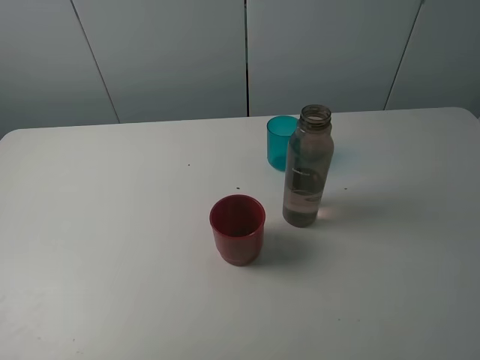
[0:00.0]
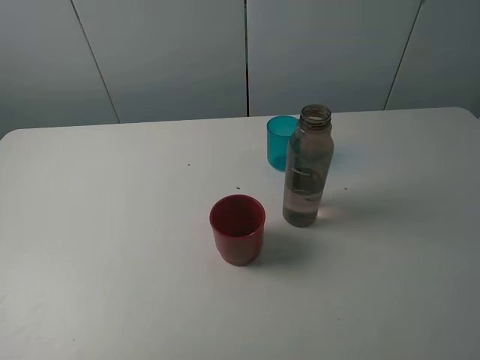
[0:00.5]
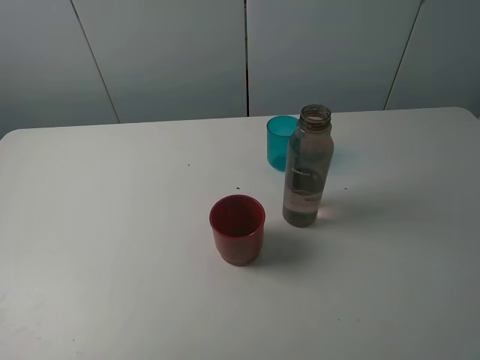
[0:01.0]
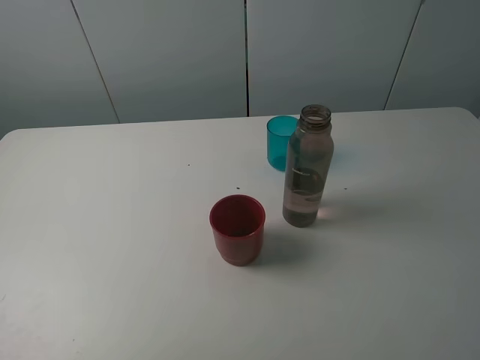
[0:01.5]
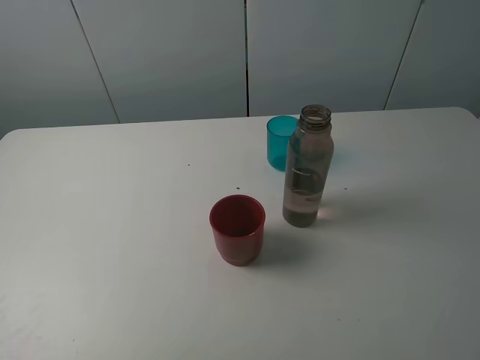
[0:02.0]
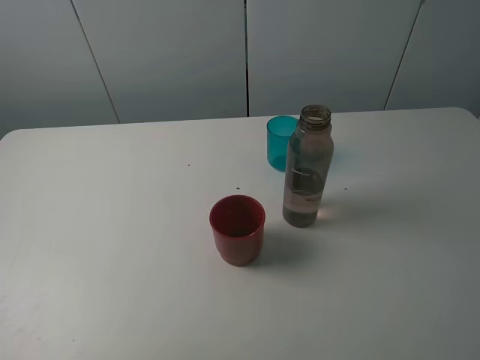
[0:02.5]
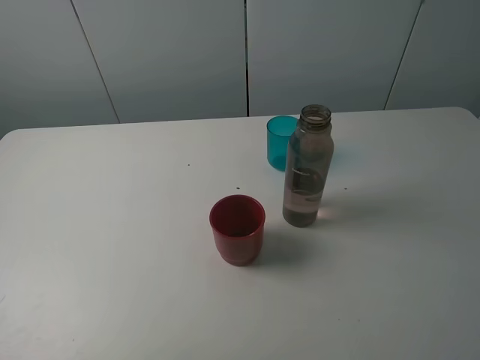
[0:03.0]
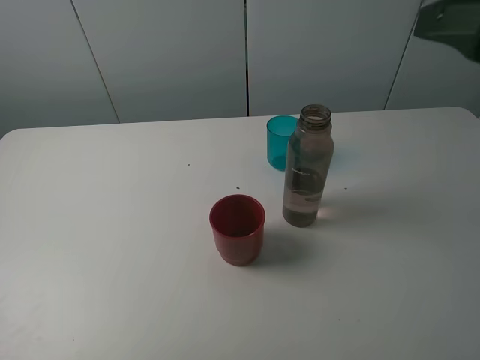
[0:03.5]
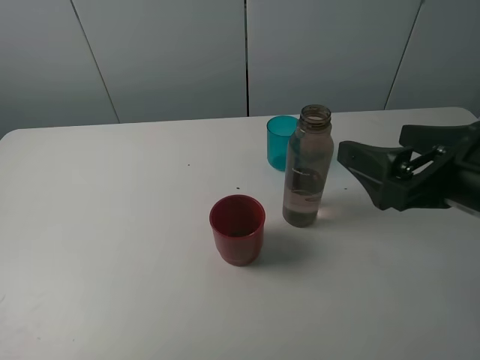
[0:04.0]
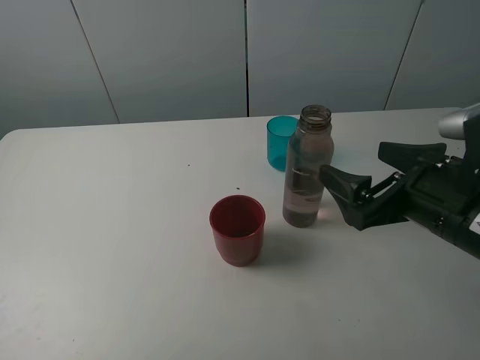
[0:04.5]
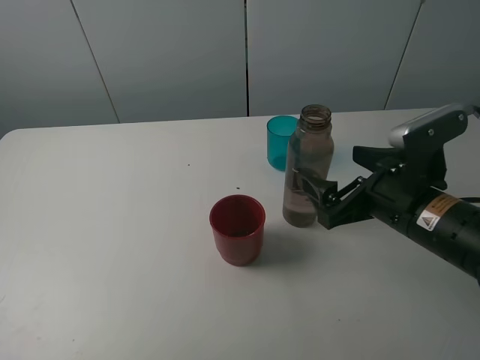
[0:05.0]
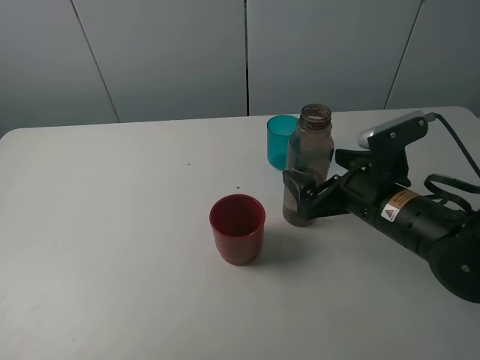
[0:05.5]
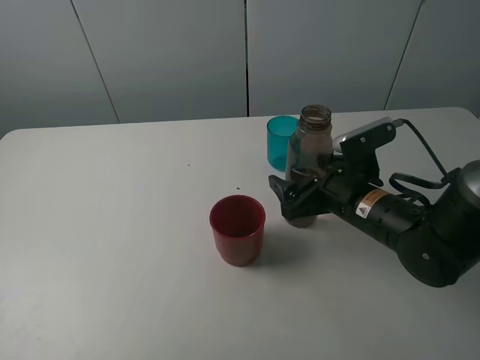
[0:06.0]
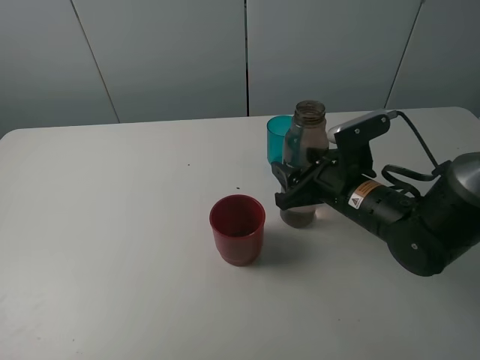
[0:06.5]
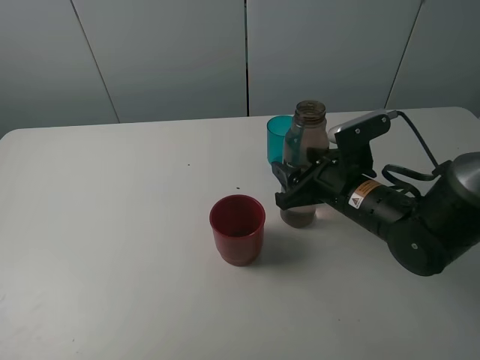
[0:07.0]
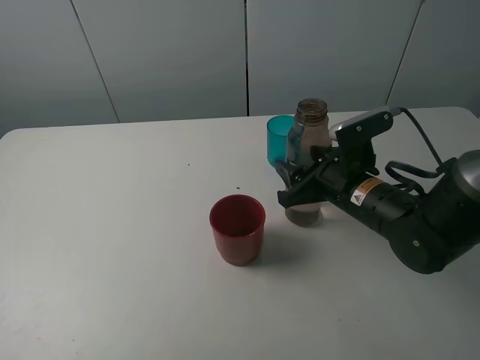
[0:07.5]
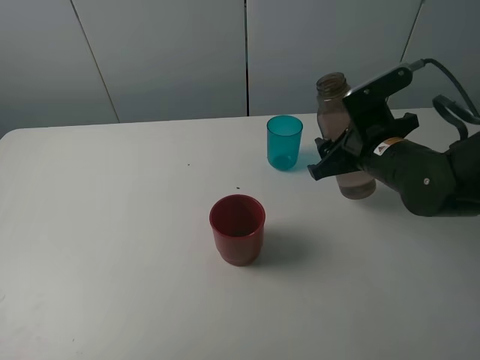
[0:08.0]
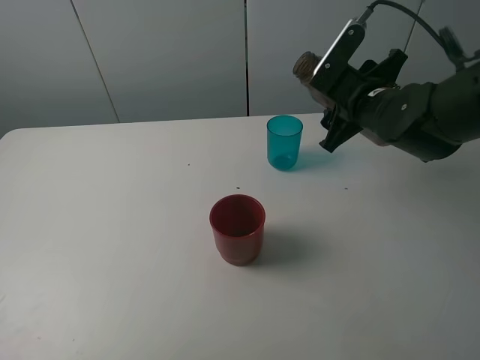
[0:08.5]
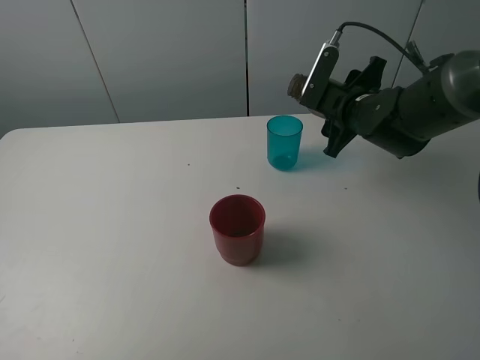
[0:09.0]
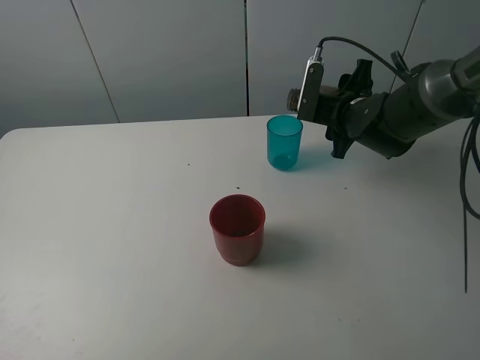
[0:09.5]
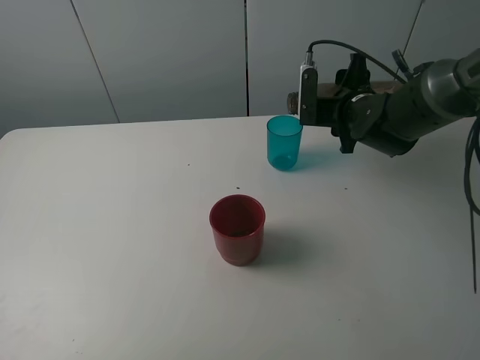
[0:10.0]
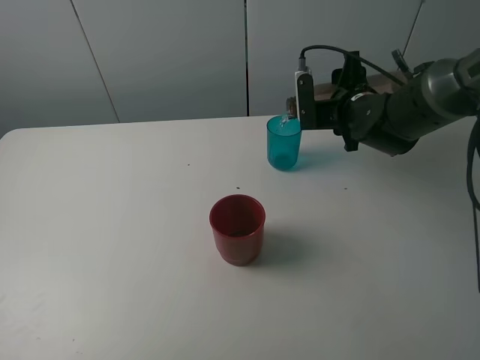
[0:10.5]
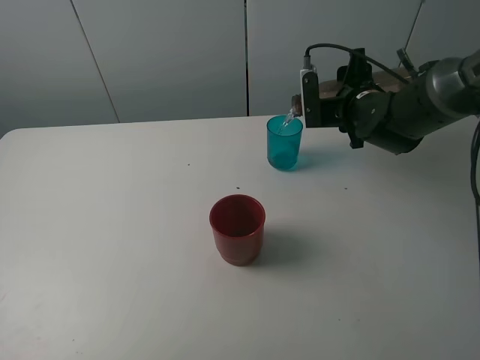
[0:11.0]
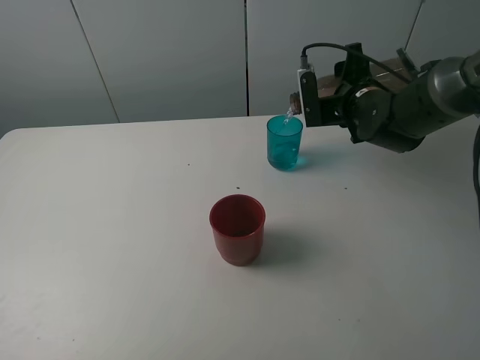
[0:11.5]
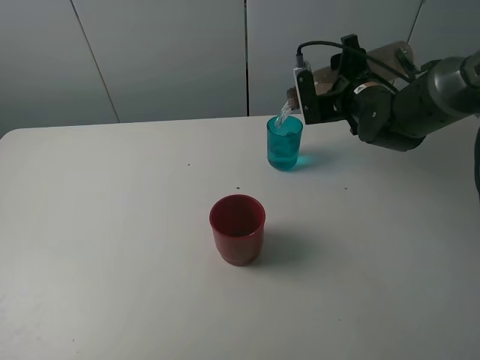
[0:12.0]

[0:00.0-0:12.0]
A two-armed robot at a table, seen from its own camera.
Task of the whole recording: pick up the bottle and pour water into the cup, then pick up the cup containing water and pour it into another cup.
Step, 0:00.0 to 0:06.5: Grasp the brown bottle with the right gripper.
0:00.0 to 0:02.0: Both grippers stay put.
0:02.0 to 0:04.0: The right gripper heads forward, to the left and downward, covering roughly 15 cm.
0:04.0 to 0:06.0: The right gripper travels downward, forward and to the left by about 15 cm.
0:06.0 to 0:08.0: The right gripper ends up about 5 cm from where it was, and closes its fingers.
0:08.0 to 0:10.0: The right gripper shifts some 10 cm forward.
0:10.0 to 0:12.0: The grippers stay close to where they were, moving slightly.

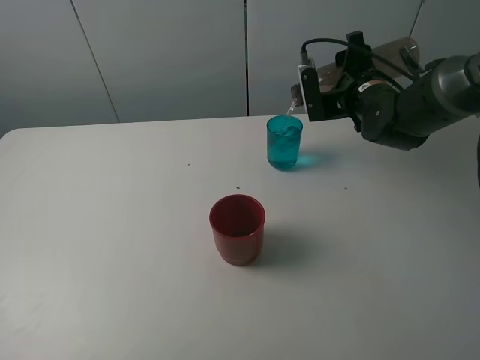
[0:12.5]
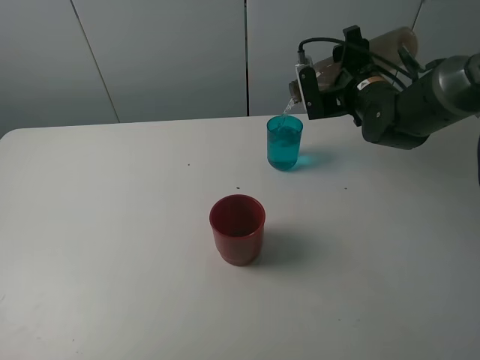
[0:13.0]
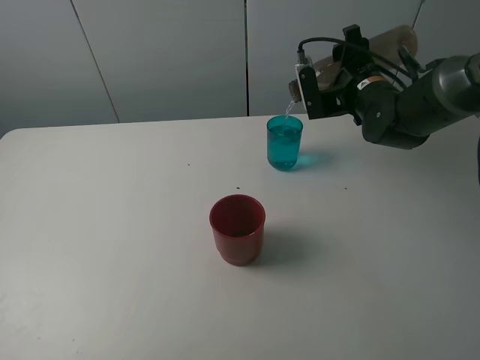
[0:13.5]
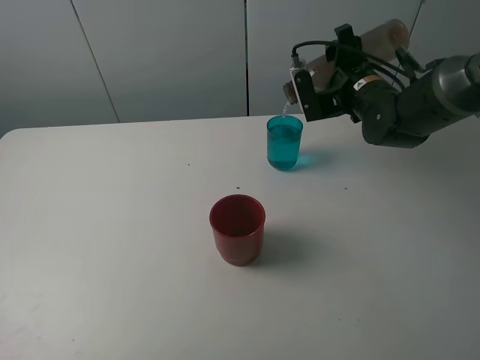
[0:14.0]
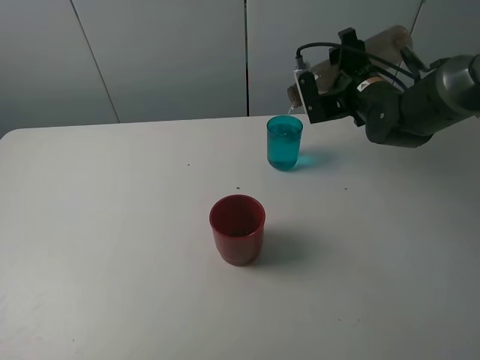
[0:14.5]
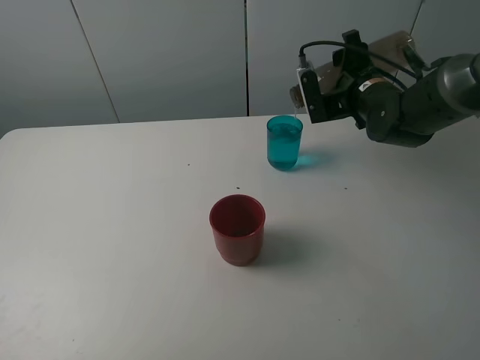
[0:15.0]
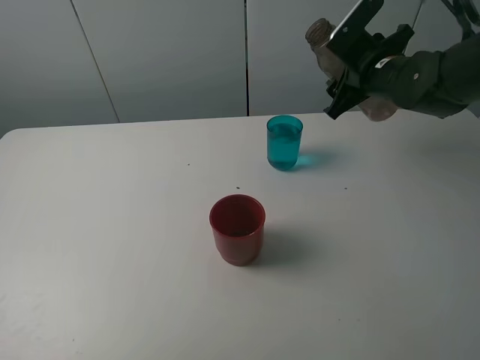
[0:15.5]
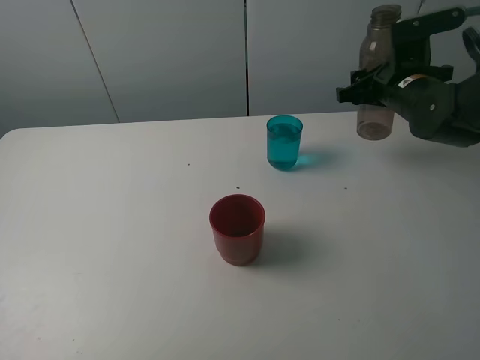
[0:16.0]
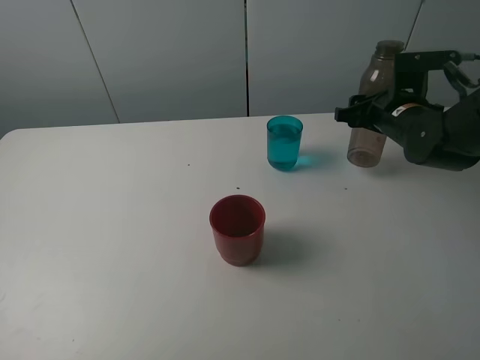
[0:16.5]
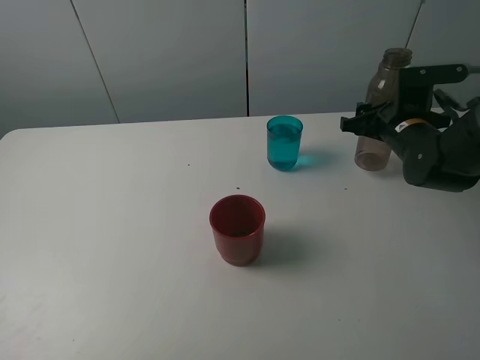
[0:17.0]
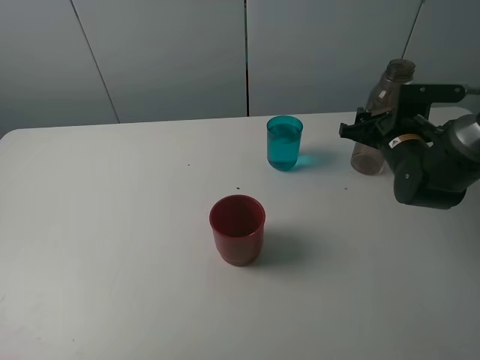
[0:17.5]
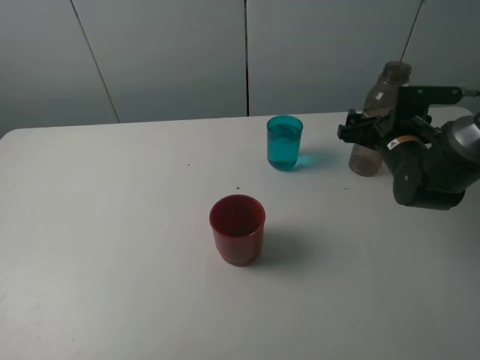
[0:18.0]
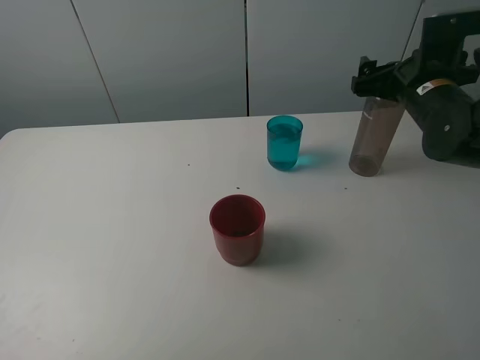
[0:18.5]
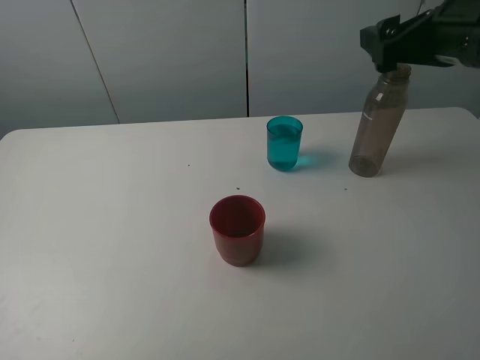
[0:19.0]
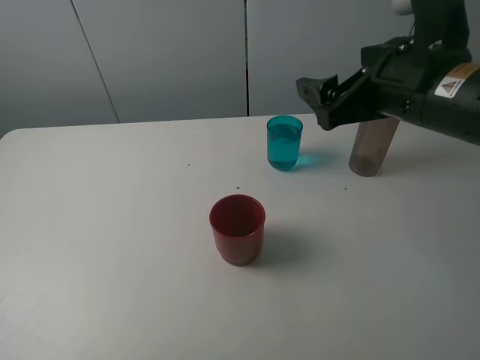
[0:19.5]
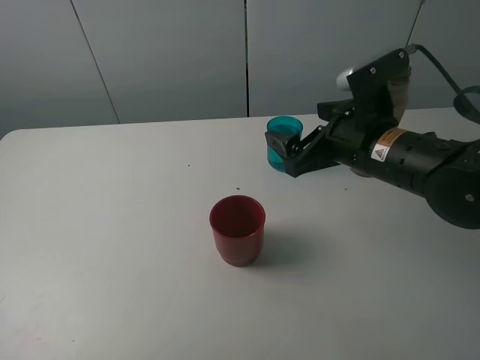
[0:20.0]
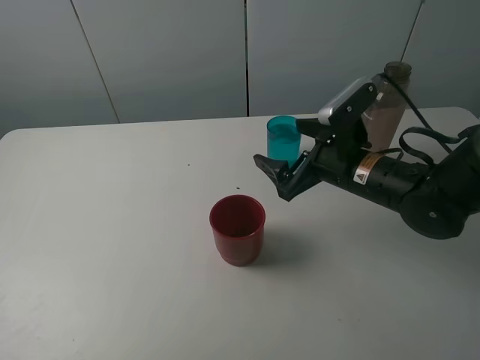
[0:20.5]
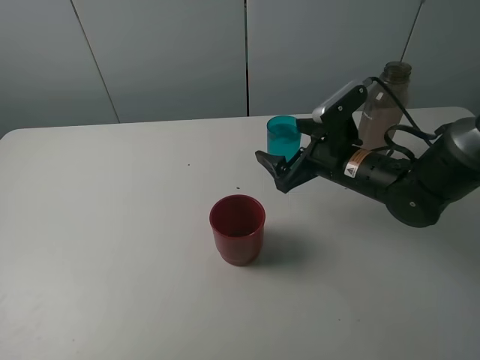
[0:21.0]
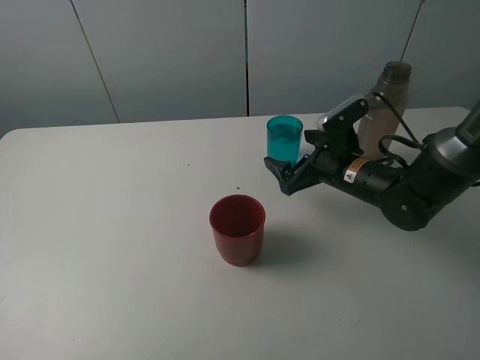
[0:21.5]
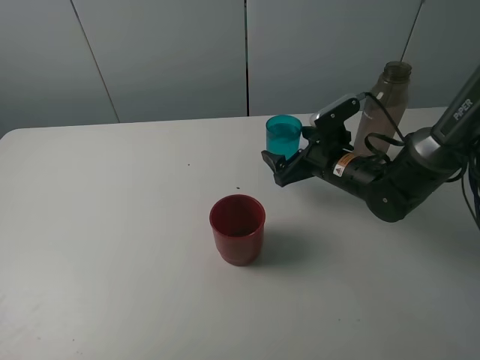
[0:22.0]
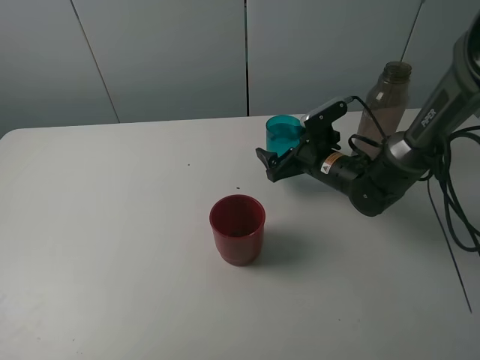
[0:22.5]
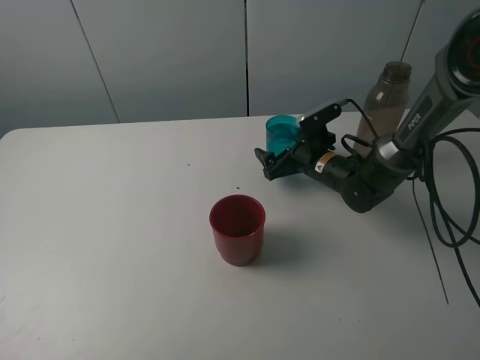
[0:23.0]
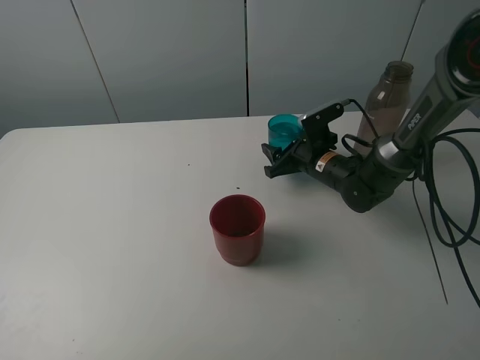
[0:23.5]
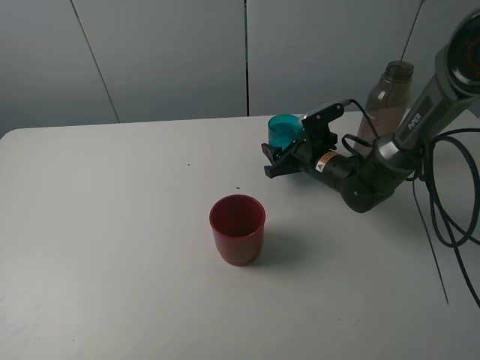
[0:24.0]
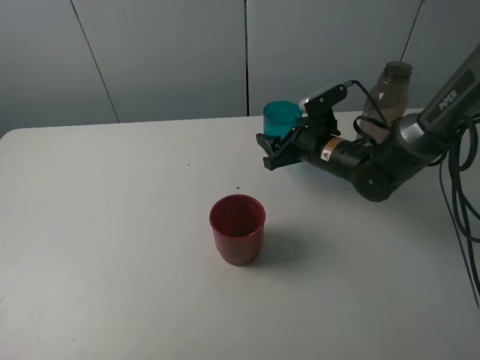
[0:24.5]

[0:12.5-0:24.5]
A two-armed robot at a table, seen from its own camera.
Task of the whole recording: pick up the bottle and pour water into the cup, then pick up the cup containing water and pour it into another cup.
Step, 0:12.5 to 0:15.0: Pour water from brown bottle to blue cup with the right gripper.
Step, 0:15.5 to 0:18.0: Place the brown bottle with the right gripper.
Step, 0:18.5 to 0:23.5: Grasp the blue cup with the right gripper.
0:12.5 to 0:14.5: The grippers stay close to where they were, moving slightly.
0:14.5 to 0:16.5: The right gripper shifts by some 5 cm.
0:16.5 to 0:18.5: The right gripper is displaced upward by roughly 5 cm, and opens.
0:18.5 to 0:20.5: The right gripper shifts some 15 cm to the left, downward and backward.
0:20.5 to 0:22.5: The right gripper moves forward and downward, approximately 10 cm.
0:22.5 to 0:24.5: The right gripper closes its fingers.

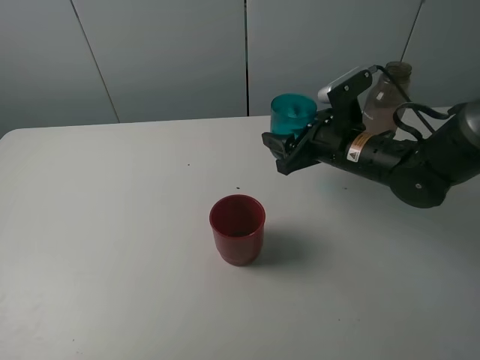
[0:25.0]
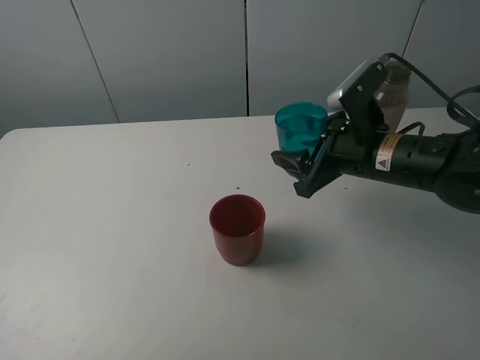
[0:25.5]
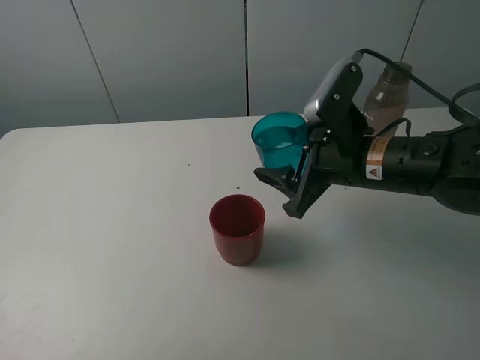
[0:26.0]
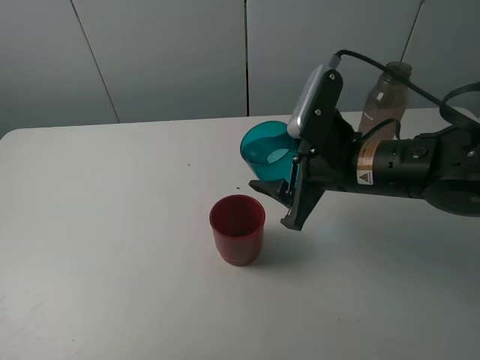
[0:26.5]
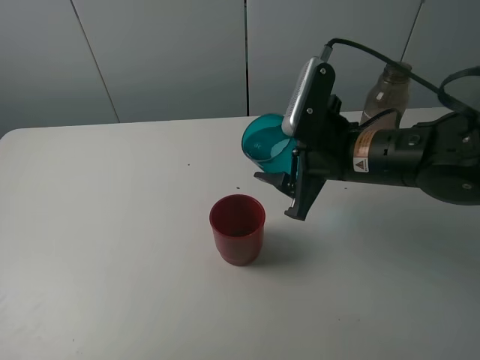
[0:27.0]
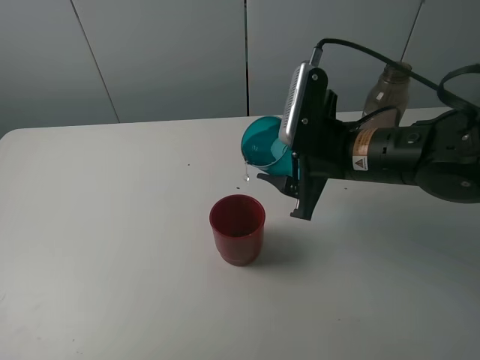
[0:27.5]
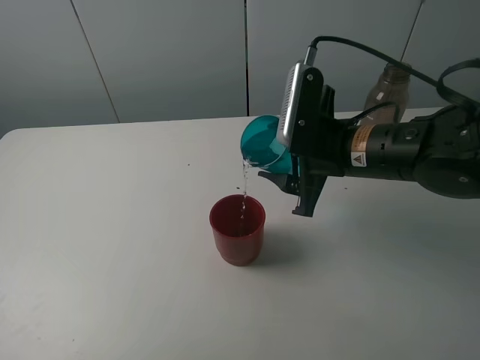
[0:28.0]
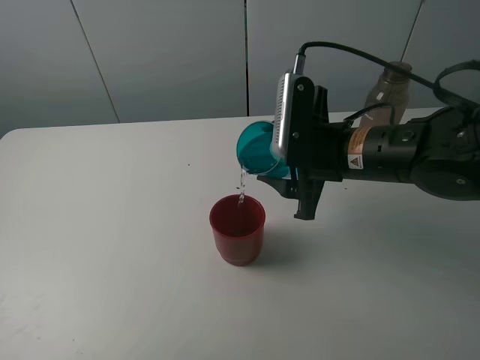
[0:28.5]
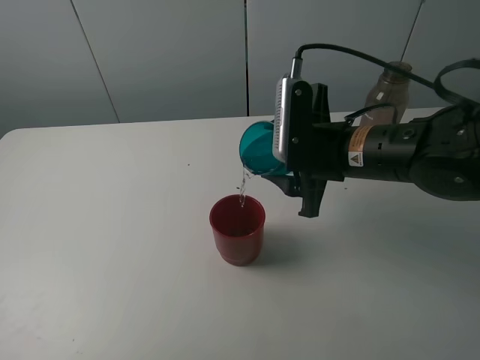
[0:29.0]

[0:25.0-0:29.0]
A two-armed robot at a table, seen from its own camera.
Task of the whole recording: pick up the bottle and pour water into the cup, then pick up the cup containing water and pour it into another cup.
0:25.0 to 0:27.0: The right gripper travels backward by approximately 5 cm.
